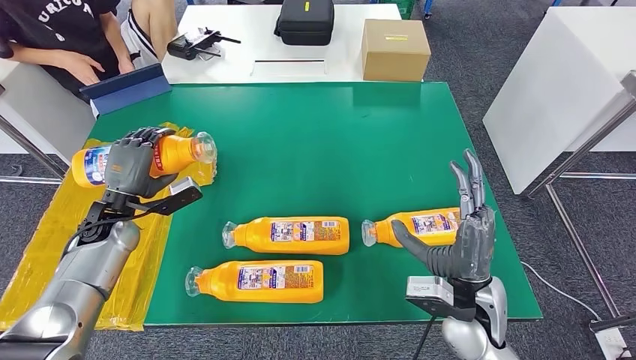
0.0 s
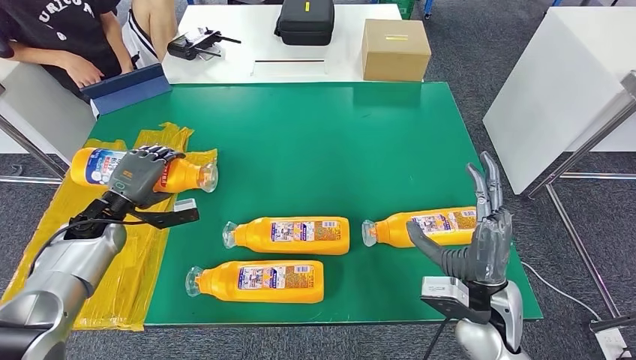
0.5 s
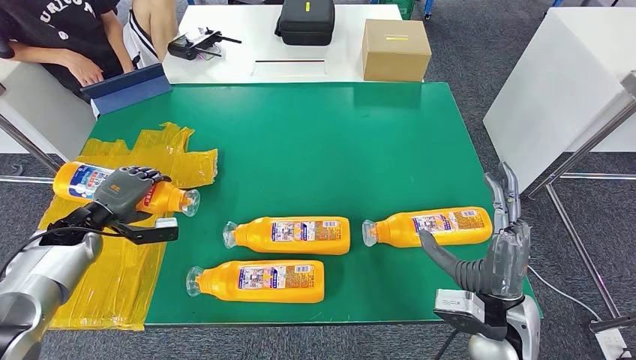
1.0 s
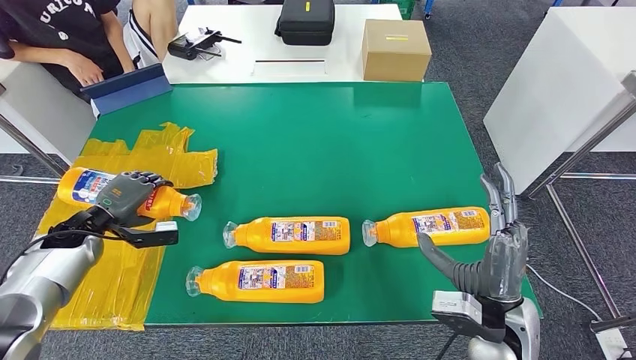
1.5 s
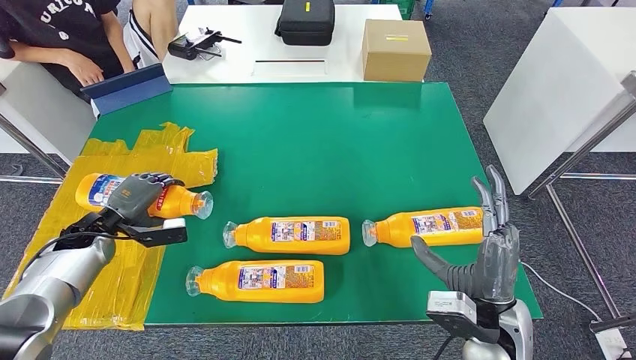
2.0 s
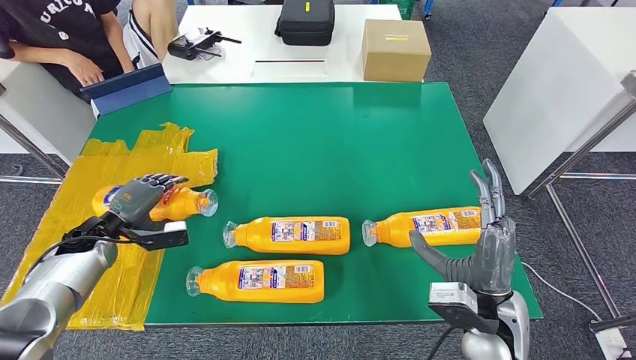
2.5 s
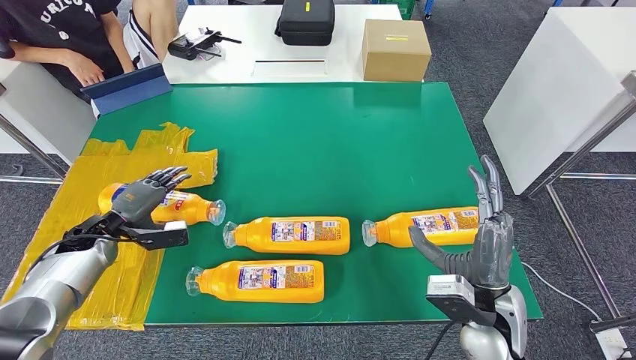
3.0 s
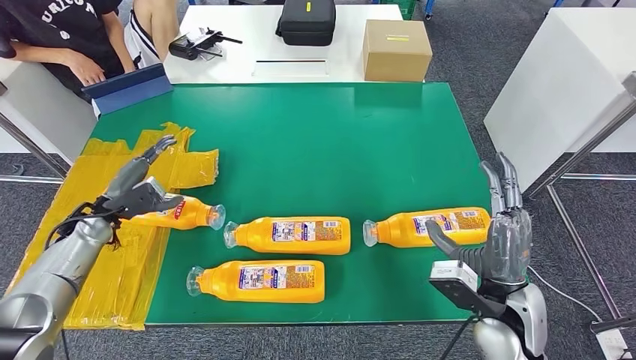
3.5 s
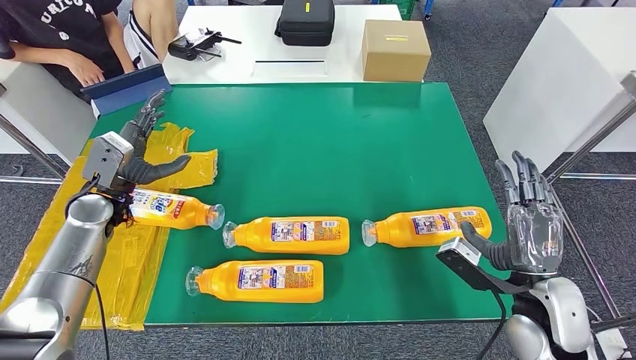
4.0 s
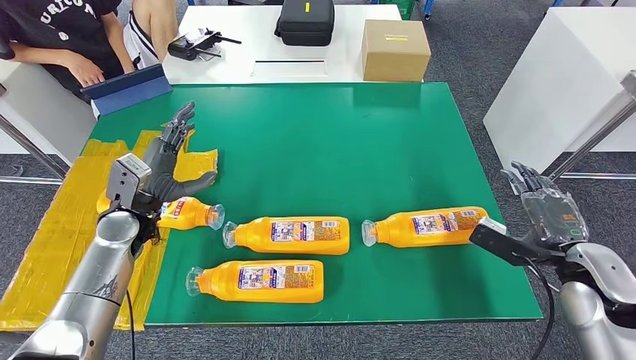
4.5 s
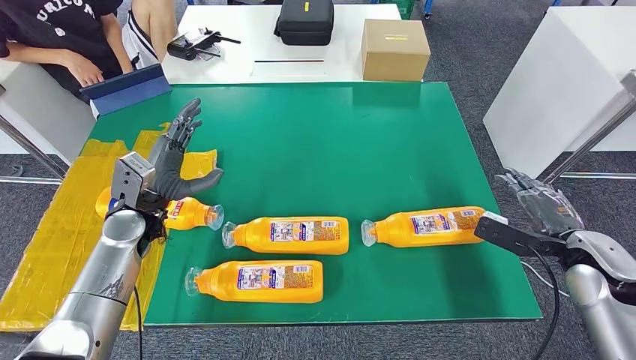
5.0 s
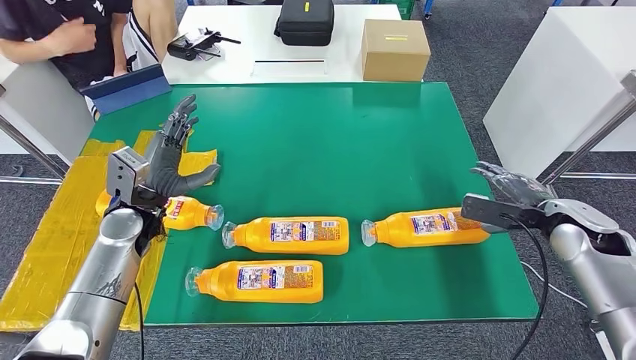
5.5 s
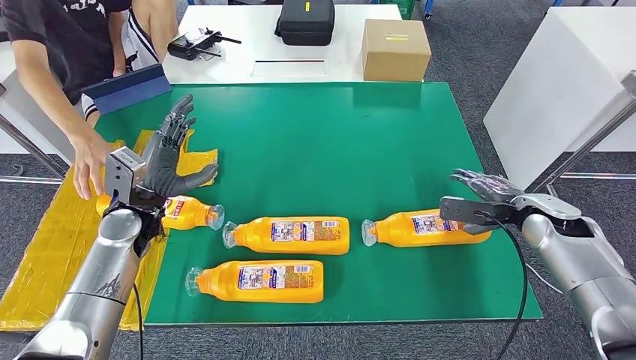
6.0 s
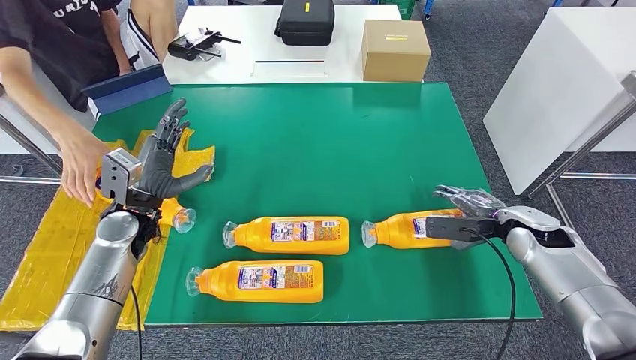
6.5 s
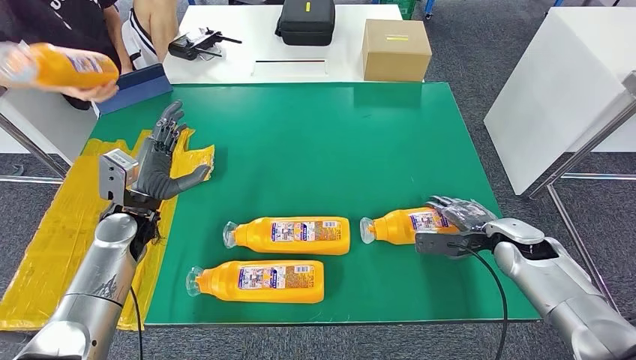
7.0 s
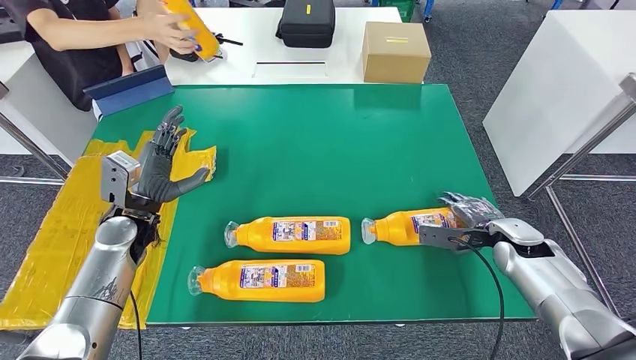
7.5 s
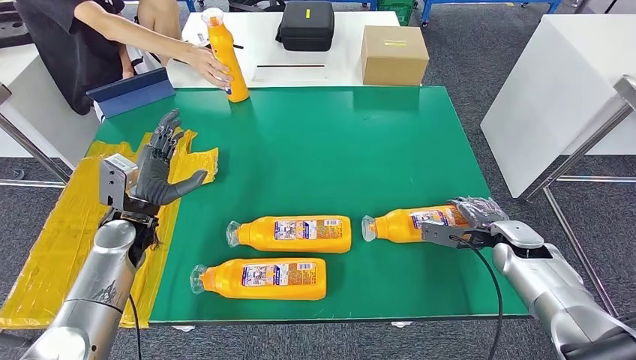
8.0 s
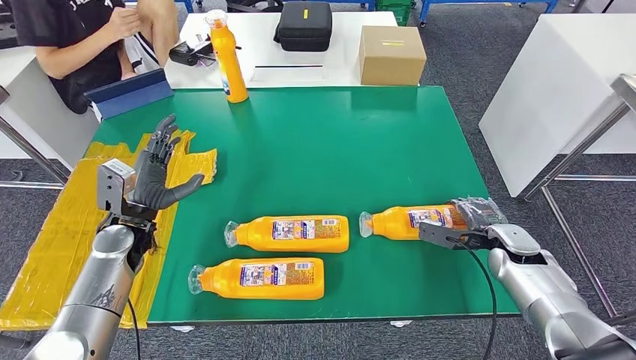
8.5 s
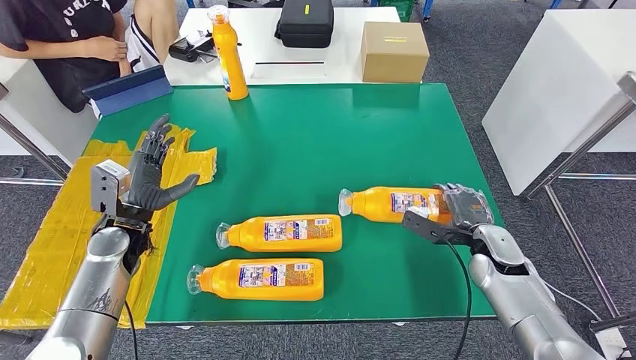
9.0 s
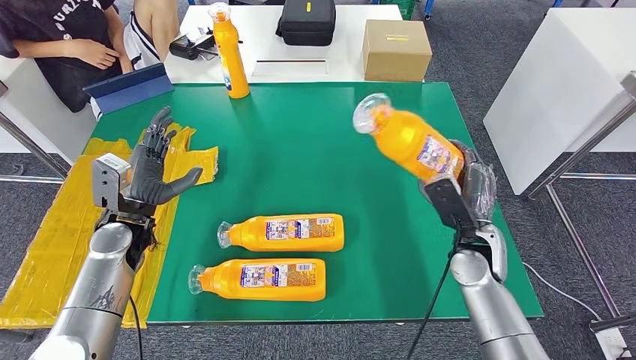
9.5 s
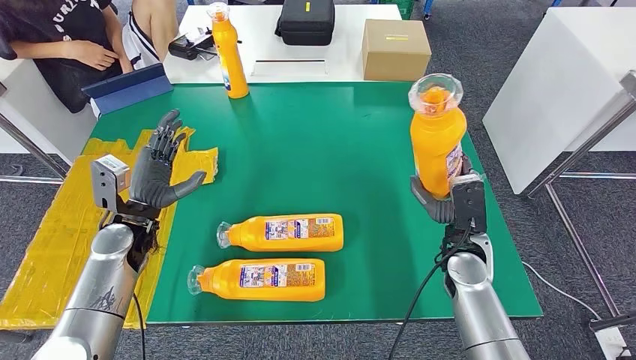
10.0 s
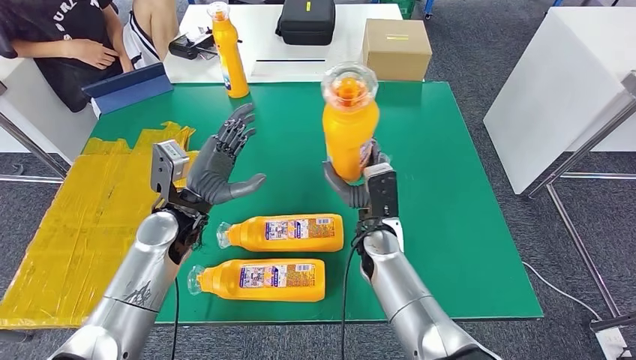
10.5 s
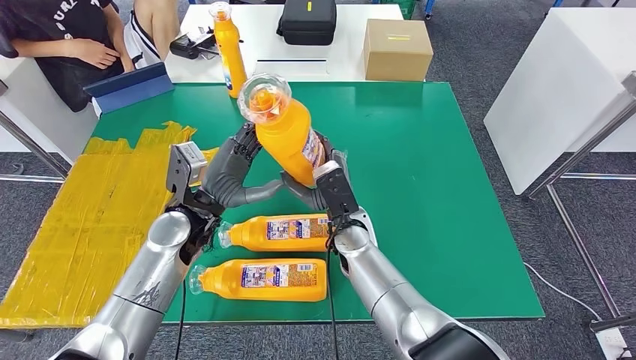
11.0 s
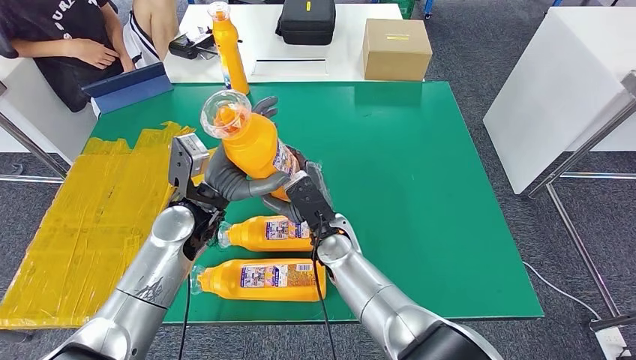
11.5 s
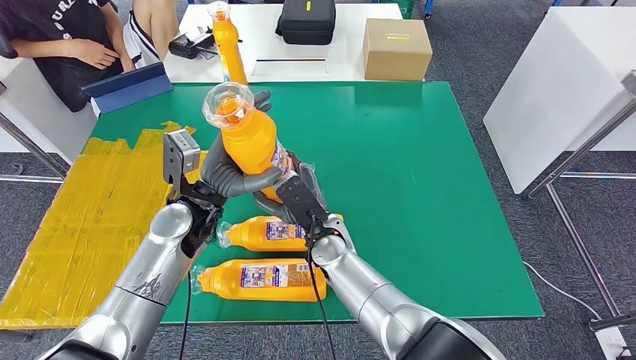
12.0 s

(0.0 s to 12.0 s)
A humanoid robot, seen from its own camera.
Step, 1.5 s - 11.0 s: Pick up the bottle from the table.
0.0 s - 2.0 s: The left hand shifts roughly 5 cm to the left.
2.0 s - 4.0 s: The left hand shifts about 10 cm upward and to the right; the right hand travels to the right by approximately 10 cm.

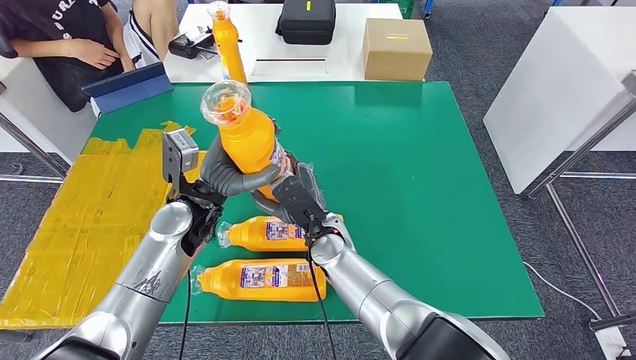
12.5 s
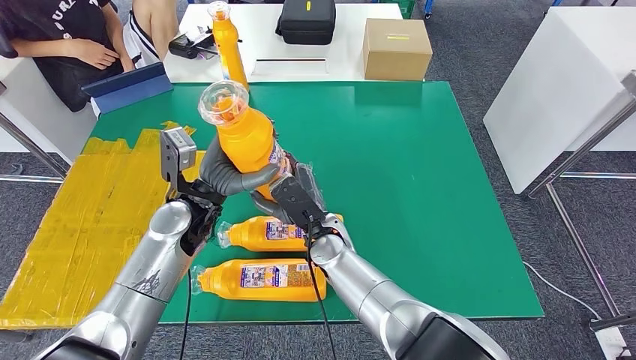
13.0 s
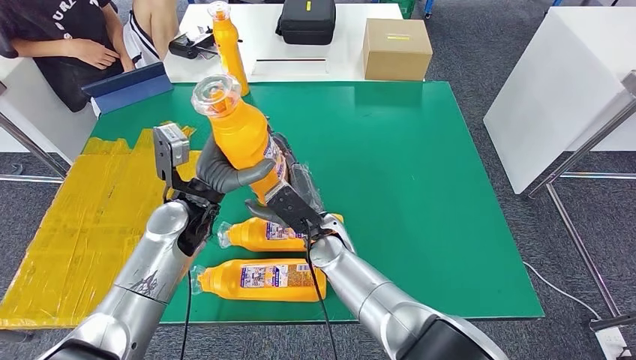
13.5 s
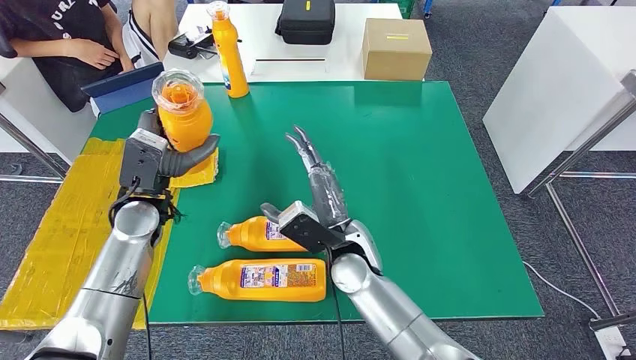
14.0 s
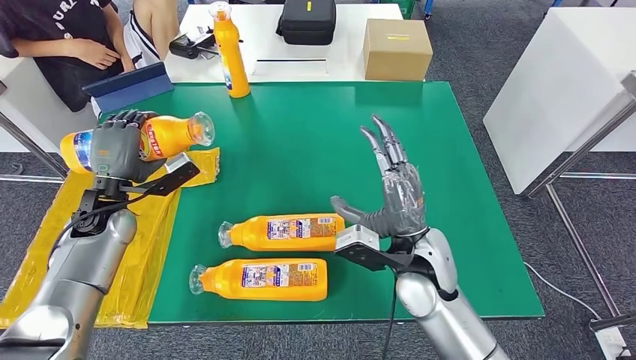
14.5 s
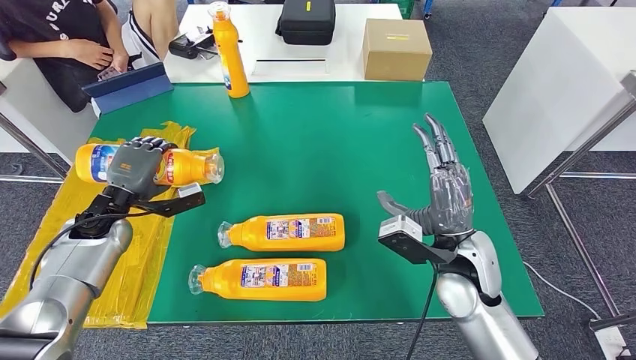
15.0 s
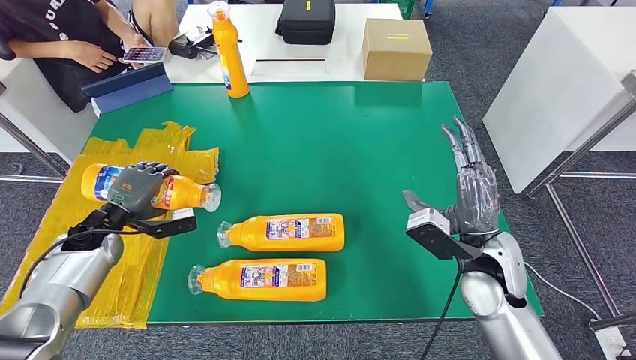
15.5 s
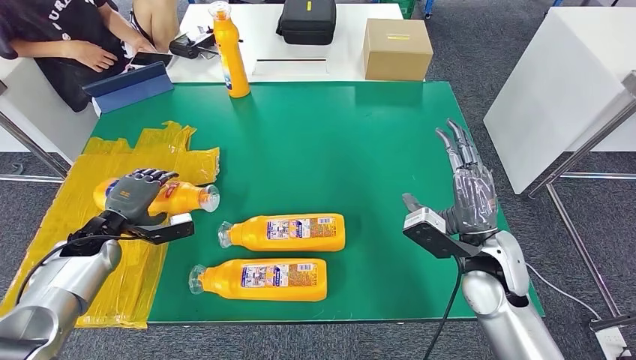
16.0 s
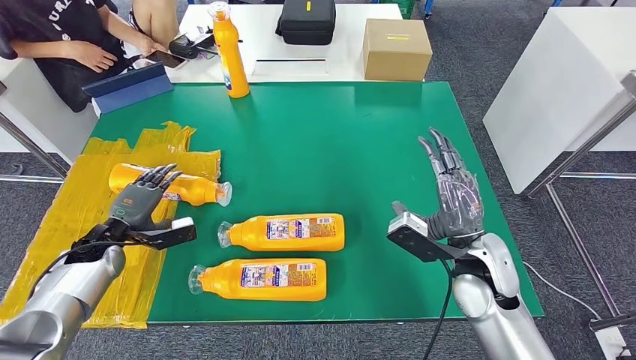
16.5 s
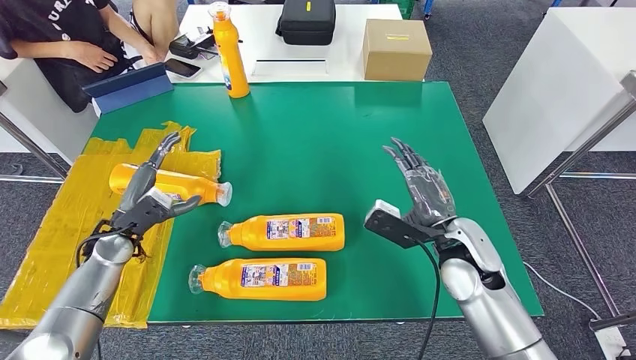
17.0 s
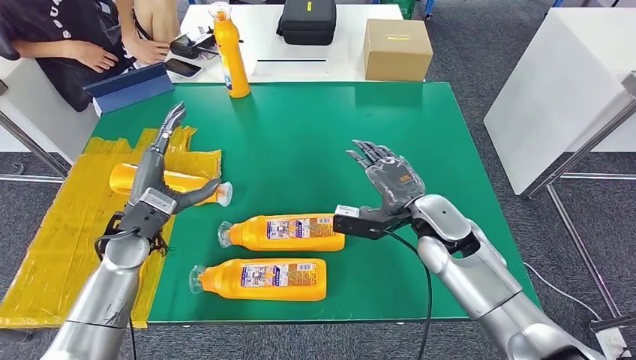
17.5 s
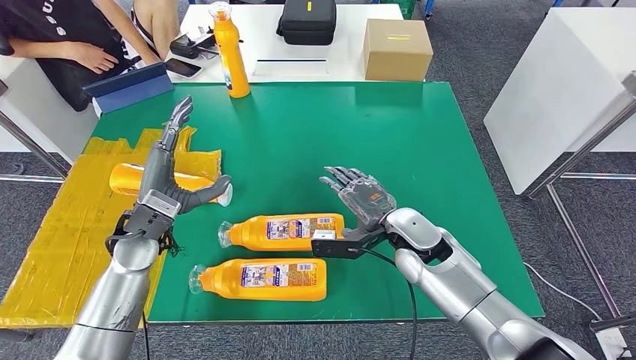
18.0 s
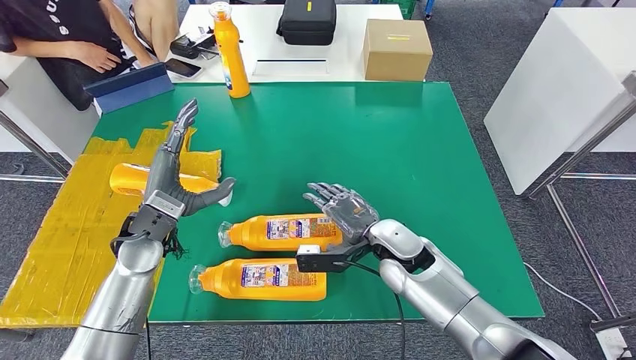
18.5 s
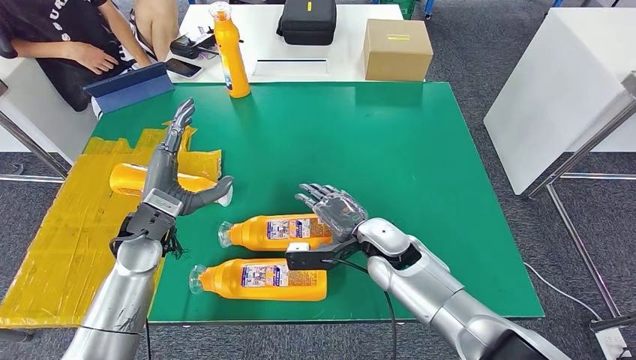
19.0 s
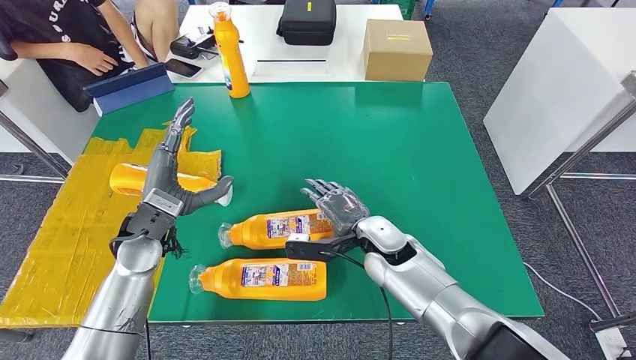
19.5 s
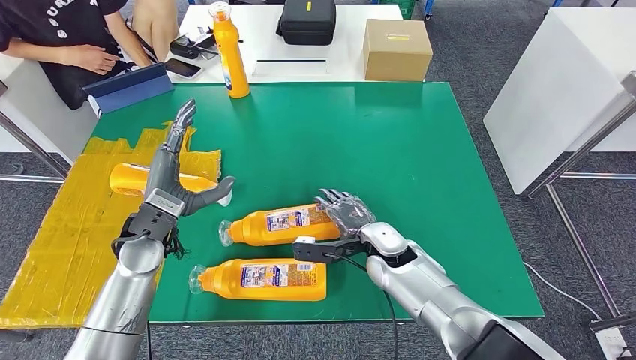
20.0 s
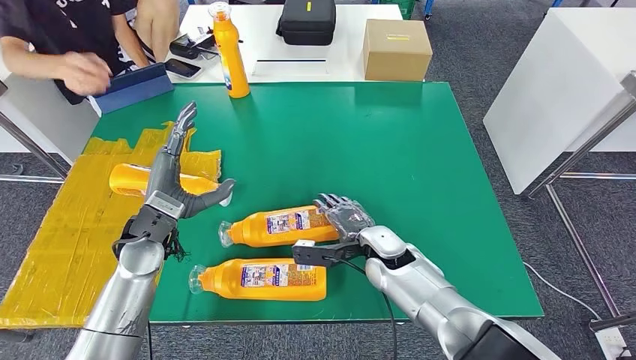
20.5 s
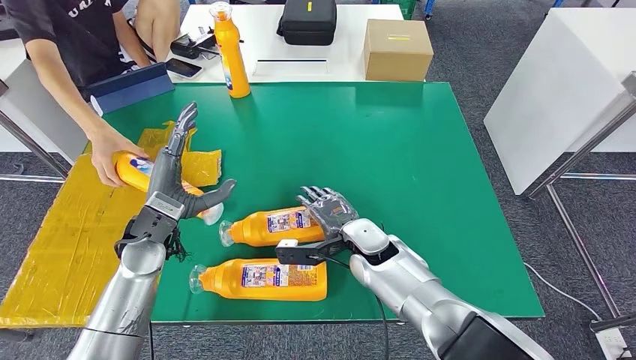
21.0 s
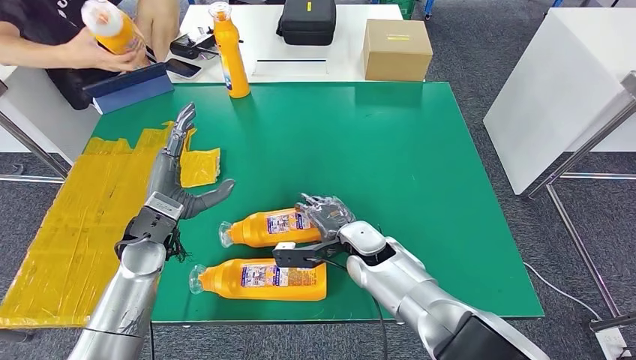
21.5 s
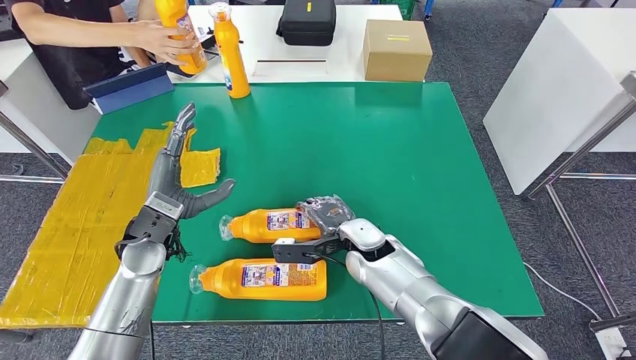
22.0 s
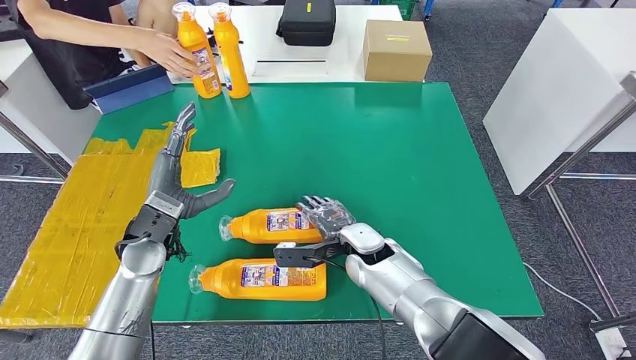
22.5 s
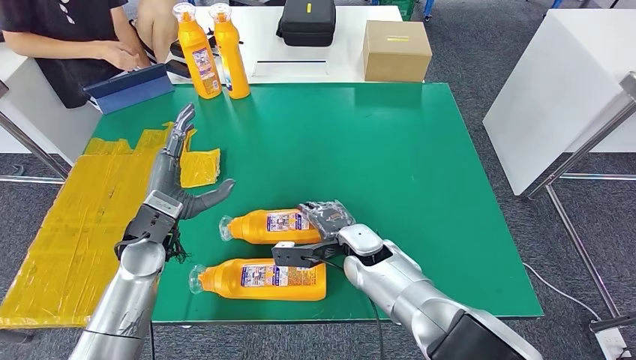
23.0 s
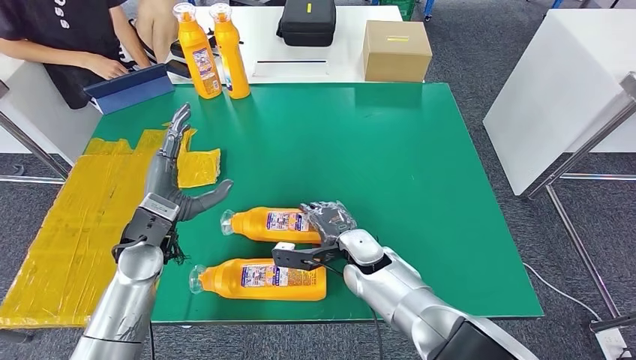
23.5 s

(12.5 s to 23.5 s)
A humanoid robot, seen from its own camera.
Step, 12.5 s - 17.5 s: Flip the bottle to face forward.
18.0 s - 20.0 s: The right hand heads downward, covering about 5 cm.
20.0 s - 23.5 s: The hands stay close to where they were, moving slightly.
